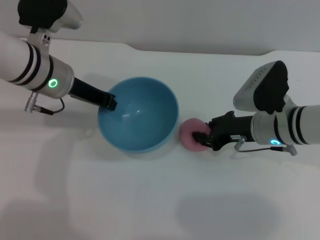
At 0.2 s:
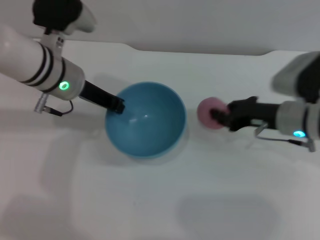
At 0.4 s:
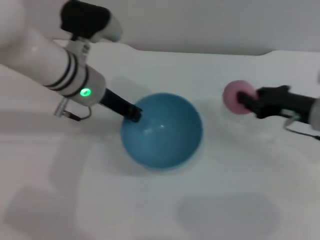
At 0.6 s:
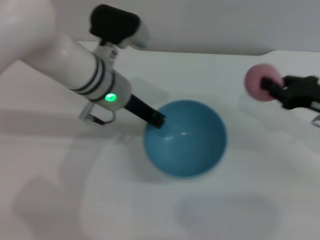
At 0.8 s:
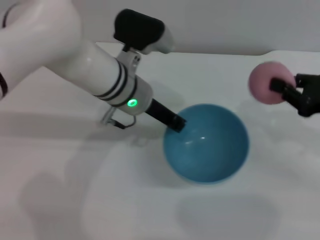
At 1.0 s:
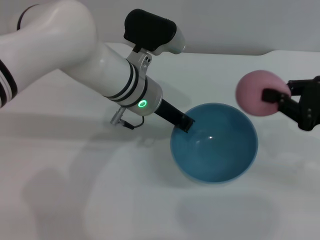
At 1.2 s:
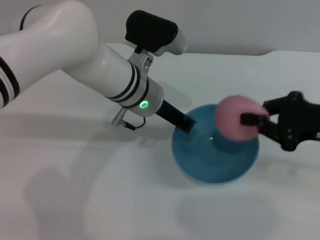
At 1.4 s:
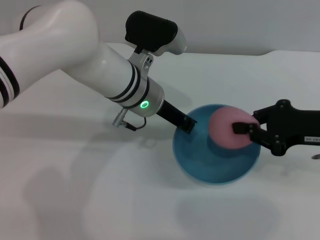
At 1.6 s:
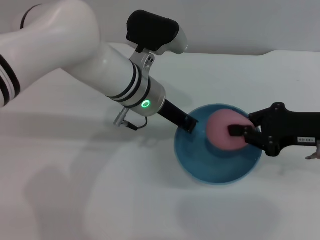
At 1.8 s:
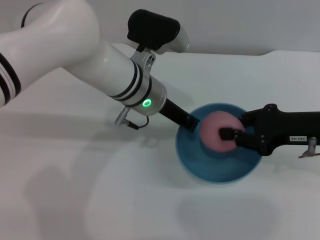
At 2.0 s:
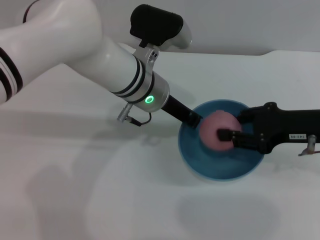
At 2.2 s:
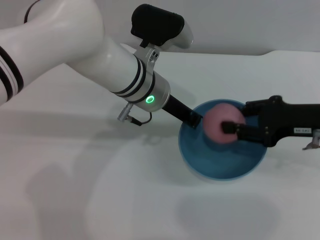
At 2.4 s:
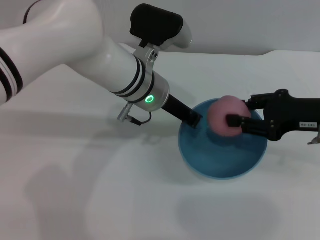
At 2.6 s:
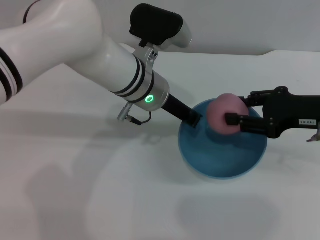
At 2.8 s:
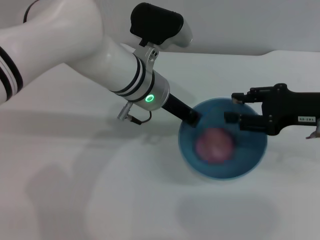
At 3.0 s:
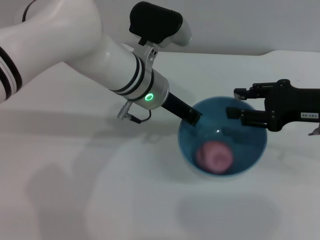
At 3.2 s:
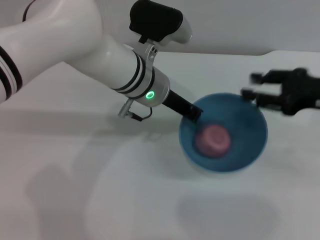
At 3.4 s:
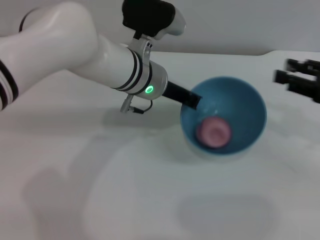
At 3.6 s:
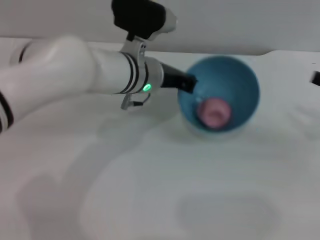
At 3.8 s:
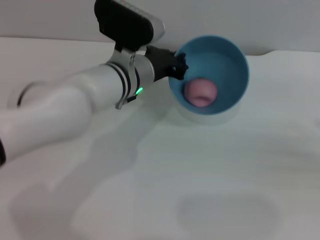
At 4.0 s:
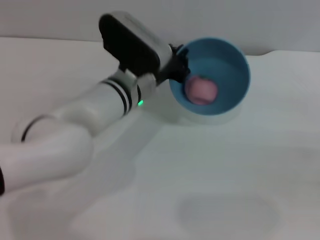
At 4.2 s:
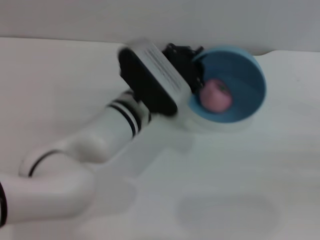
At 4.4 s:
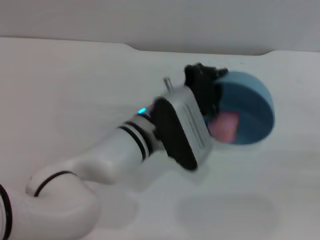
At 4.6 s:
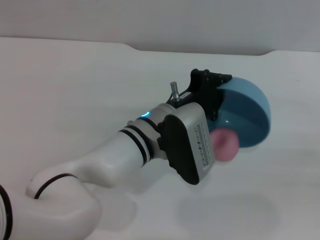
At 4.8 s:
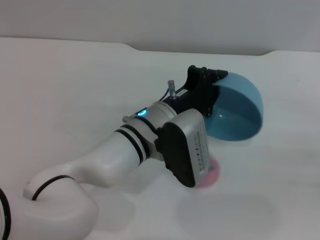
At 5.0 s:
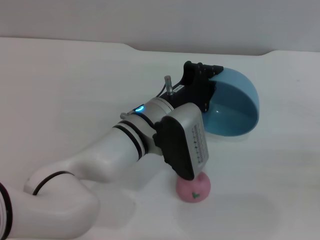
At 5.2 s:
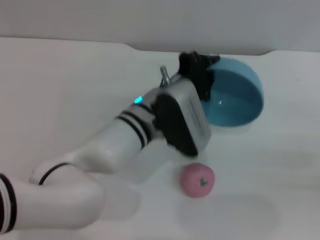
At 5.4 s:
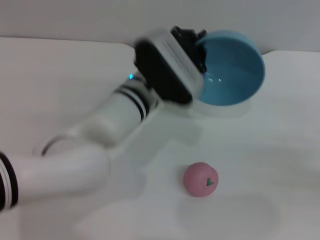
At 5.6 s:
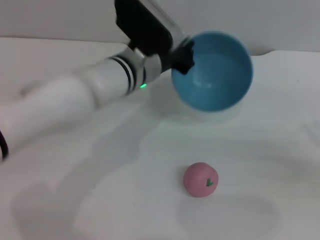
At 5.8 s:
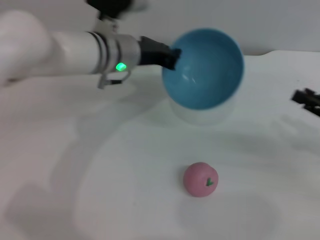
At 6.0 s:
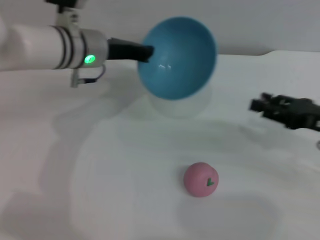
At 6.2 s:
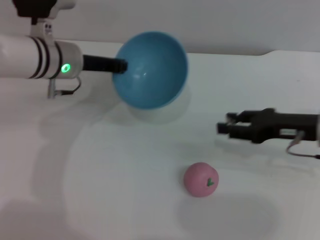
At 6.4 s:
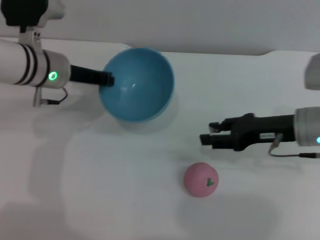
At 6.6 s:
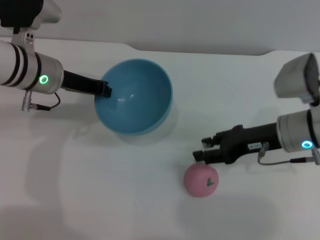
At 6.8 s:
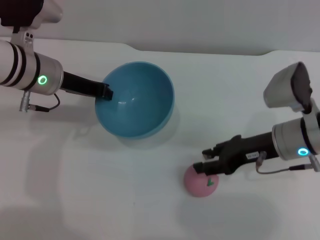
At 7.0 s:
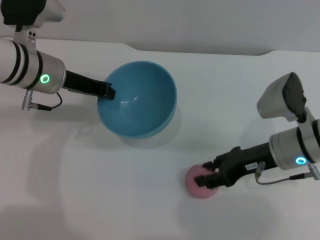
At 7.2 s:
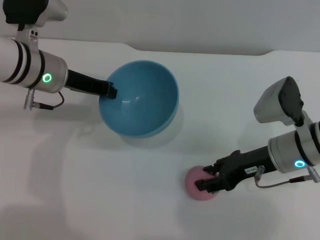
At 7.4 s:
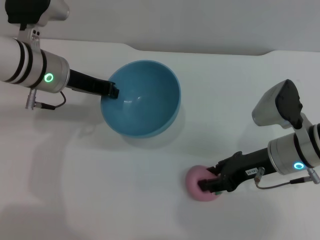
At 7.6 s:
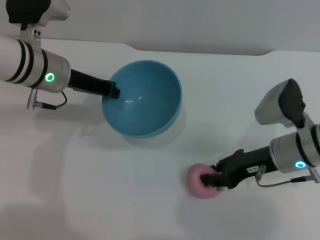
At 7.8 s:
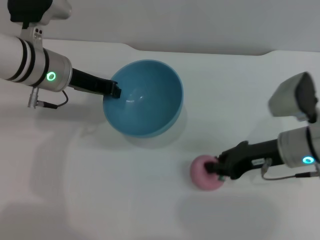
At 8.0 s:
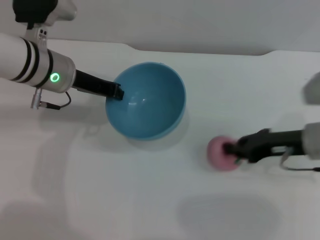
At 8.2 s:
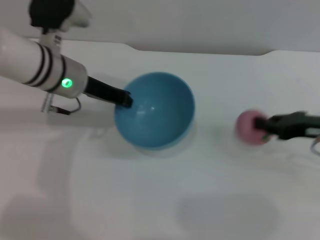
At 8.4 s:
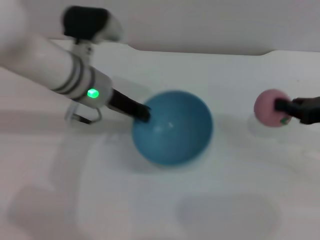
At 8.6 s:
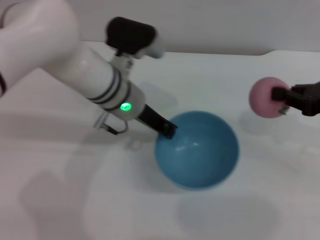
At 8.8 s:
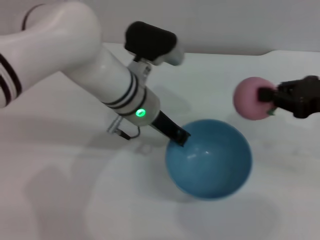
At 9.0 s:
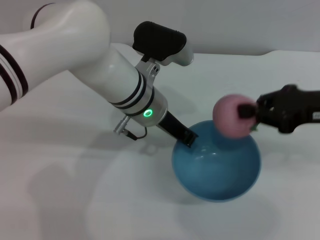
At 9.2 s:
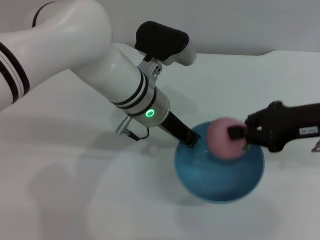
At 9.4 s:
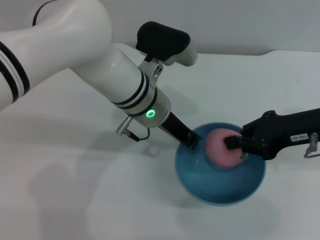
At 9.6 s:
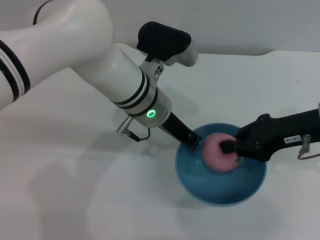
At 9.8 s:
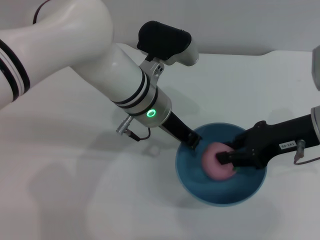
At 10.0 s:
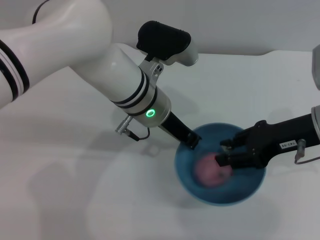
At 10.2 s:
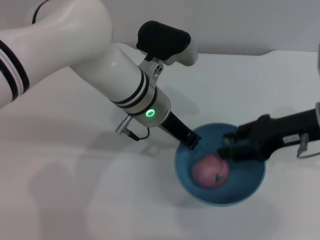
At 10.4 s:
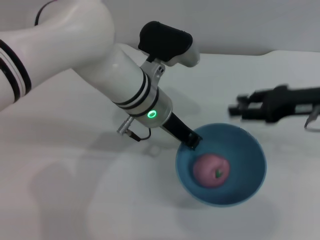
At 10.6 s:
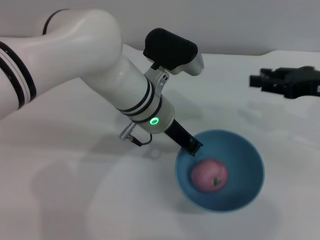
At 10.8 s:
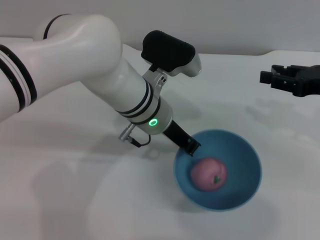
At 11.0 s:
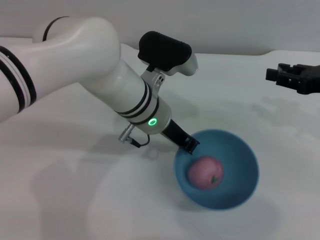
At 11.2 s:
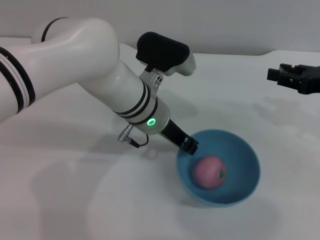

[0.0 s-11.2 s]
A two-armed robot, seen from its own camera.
Task of the whole recording: put the peach into the blue bowl and pour it out repeatedly.
Step, 0.8 to 3.0 s: Place the peach into the bowl.
Step, 3.2 to 5.4 s: Pour the peach out of bowl.
Step, 5.8 to 8.2 s: Pick up the peach with the right gripper.
Step, 8.6 to 10.4 s: Place the peach into the bowl.
0.0 to 1.6 s: The left gripper travels to the right by about 15 cm; the right gripper shifts approximately 10 cm to the right and upward, and closes up.
1.6 to 3.2 s: The right gripper opens up.
3.2 to 4.8 s: The right gripper shifts roughly 20 cm to the right, backward and downward. The left gripper travels backward and downward by approximately 10 cm.
4.8 to 6.4 s: The grippers both shift to the left and forward by some 20 cm.
6.4 to 8.0 s: The right gripper closes up.
8.0 to 9.6 s: The right gripper travels upward by approximately 5 cm; the left gripper heads to the right, covering about 15 cm.
9.6 to 11.2 s: The right gripper goes roughly 10 cm to the right, and opens its fingers.

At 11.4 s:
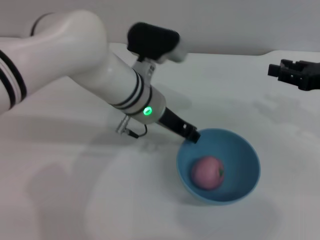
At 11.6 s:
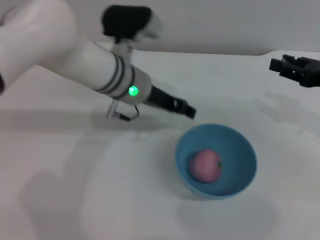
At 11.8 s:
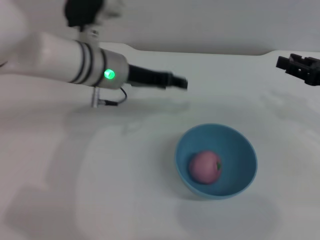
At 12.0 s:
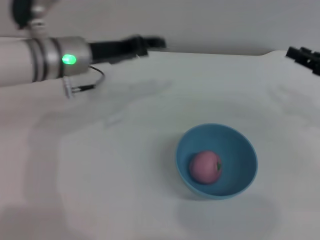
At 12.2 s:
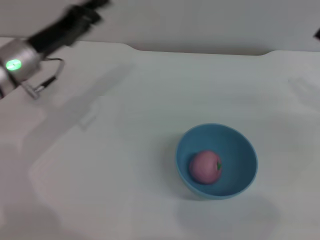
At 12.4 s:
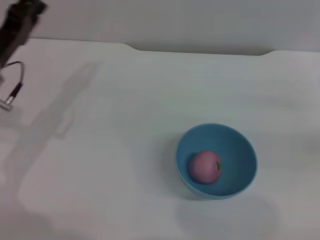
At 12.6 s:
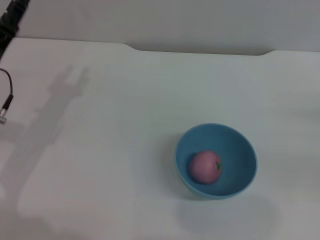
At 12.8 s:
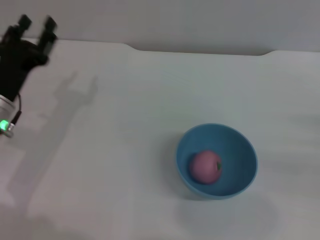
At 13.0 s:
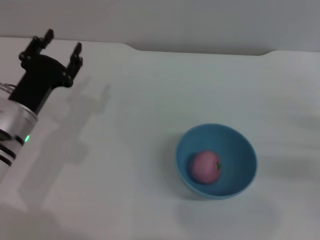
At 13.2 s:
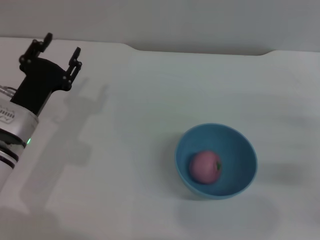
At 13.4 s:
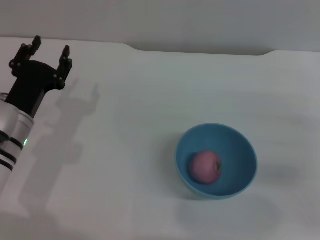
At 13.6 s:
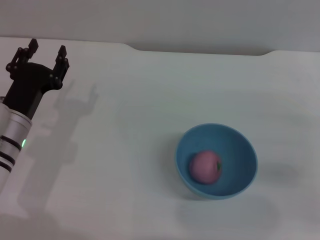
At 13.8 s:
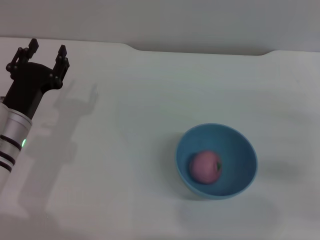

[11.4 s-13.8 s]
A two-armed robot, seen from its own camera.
Task of the whole recording: put the peach into the blue bowl and pour it out repeatedly.
11.4 to 12.6 s: The left gripper shifts approximately 20 cm to the left, and opens up. Meanwhile the right gripper goes approximately 15 cm to the right, downward and backward.
12.6 to 13.8 s: The left gripper ends up roughly 5 cm from where it was.
